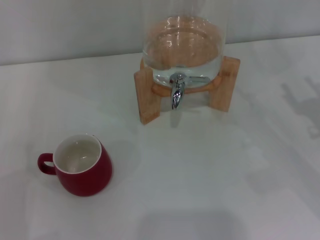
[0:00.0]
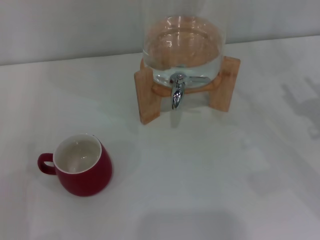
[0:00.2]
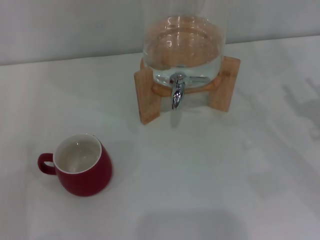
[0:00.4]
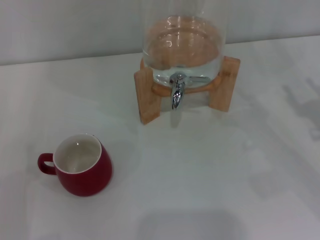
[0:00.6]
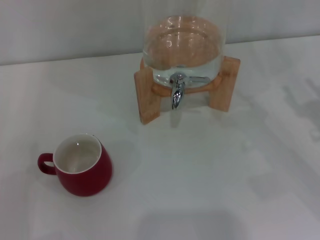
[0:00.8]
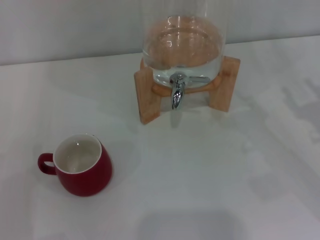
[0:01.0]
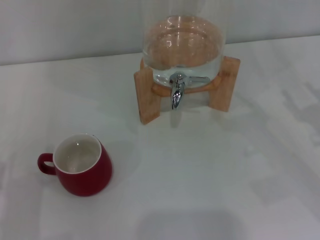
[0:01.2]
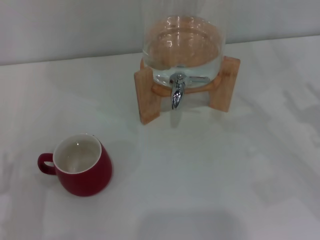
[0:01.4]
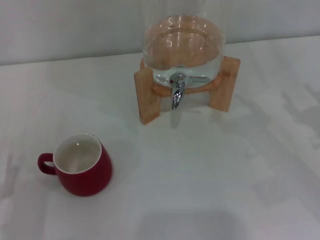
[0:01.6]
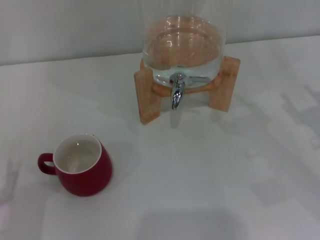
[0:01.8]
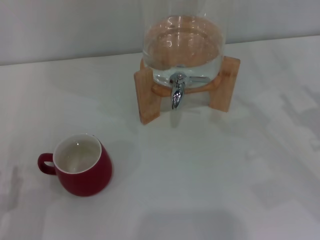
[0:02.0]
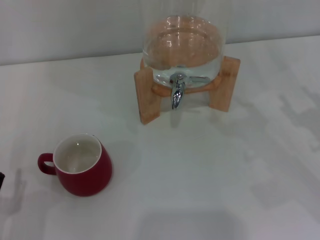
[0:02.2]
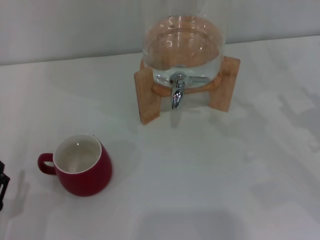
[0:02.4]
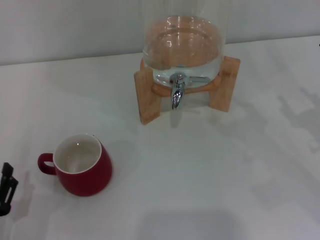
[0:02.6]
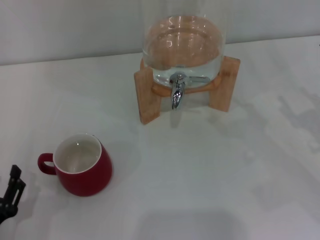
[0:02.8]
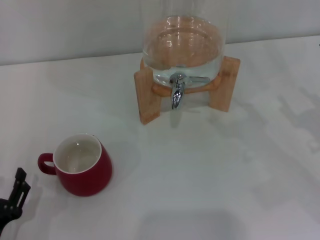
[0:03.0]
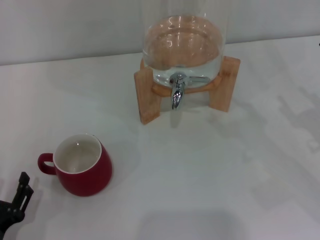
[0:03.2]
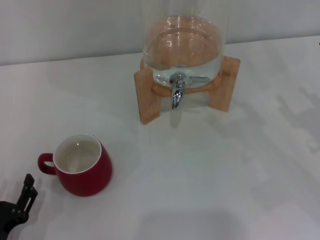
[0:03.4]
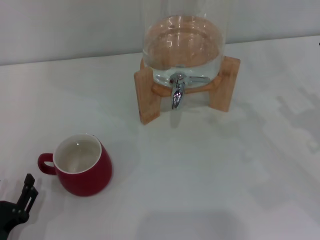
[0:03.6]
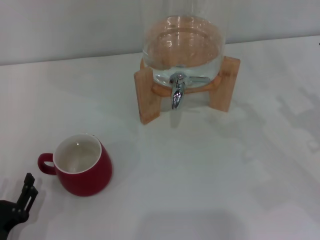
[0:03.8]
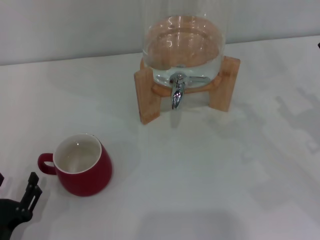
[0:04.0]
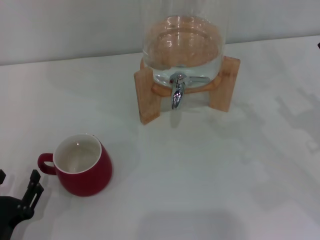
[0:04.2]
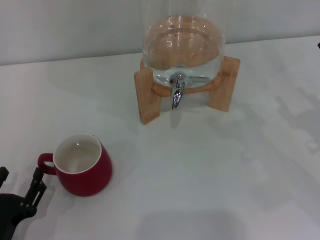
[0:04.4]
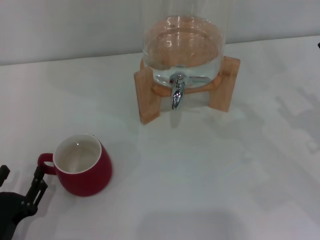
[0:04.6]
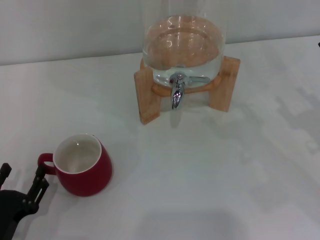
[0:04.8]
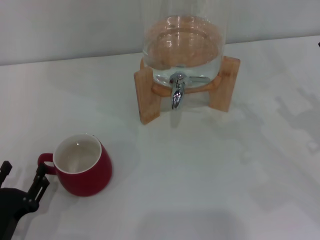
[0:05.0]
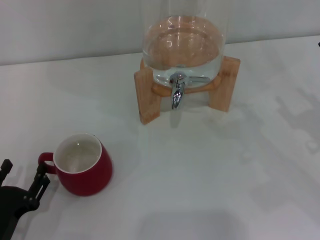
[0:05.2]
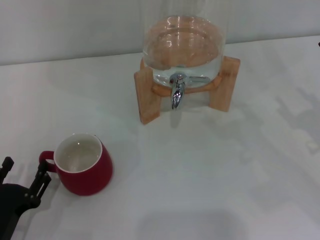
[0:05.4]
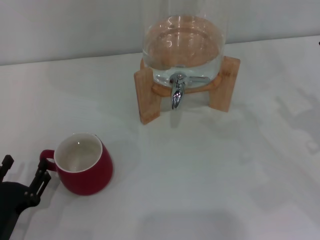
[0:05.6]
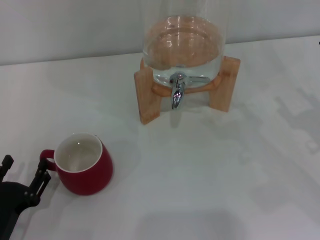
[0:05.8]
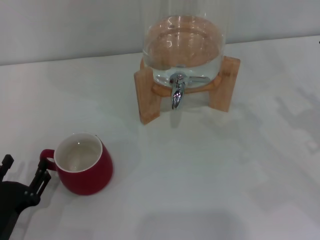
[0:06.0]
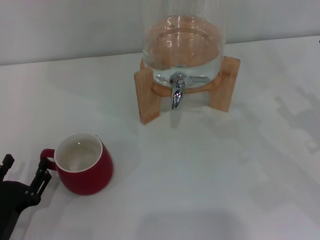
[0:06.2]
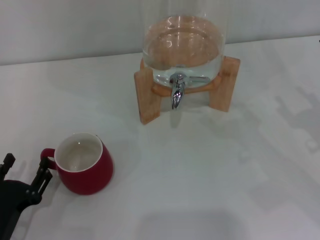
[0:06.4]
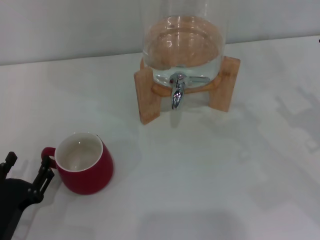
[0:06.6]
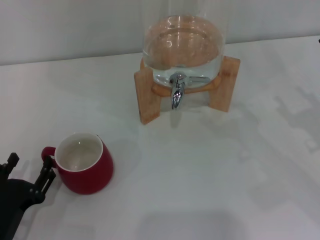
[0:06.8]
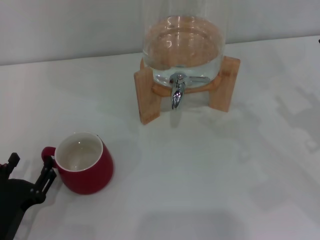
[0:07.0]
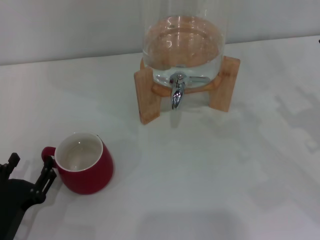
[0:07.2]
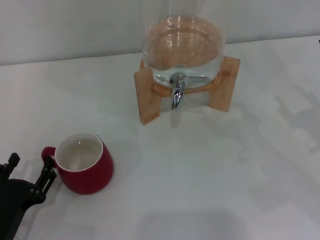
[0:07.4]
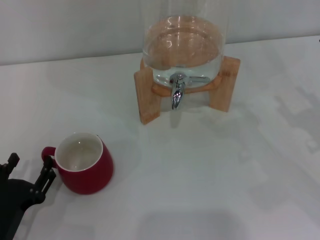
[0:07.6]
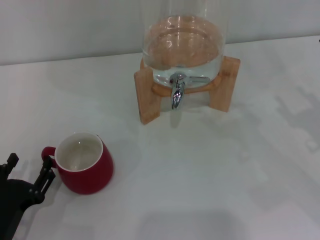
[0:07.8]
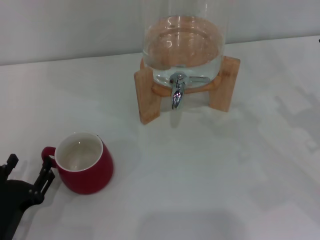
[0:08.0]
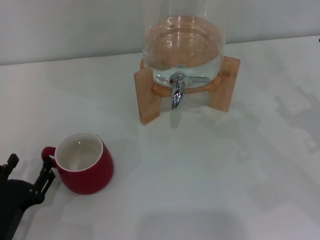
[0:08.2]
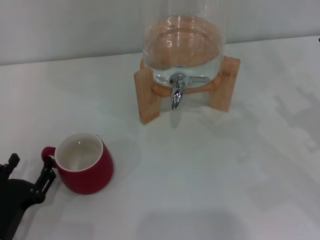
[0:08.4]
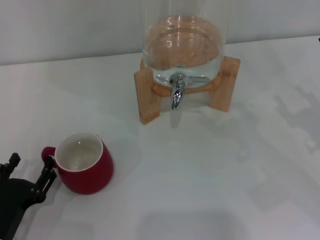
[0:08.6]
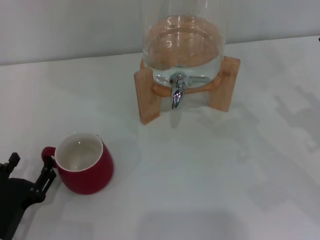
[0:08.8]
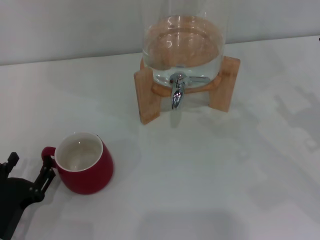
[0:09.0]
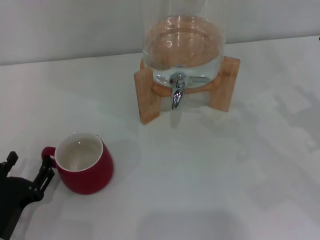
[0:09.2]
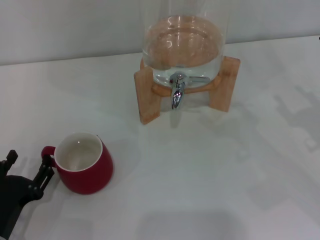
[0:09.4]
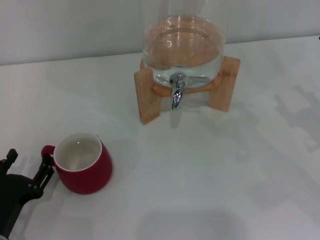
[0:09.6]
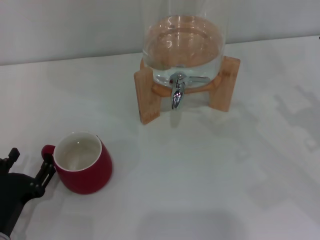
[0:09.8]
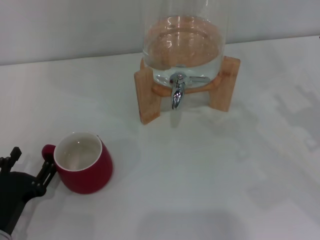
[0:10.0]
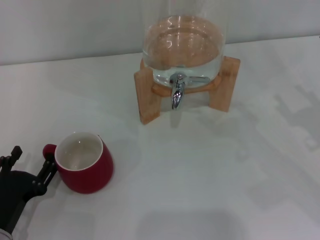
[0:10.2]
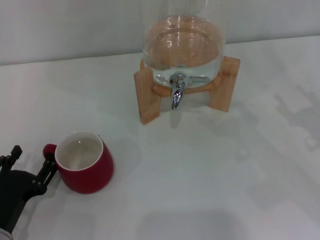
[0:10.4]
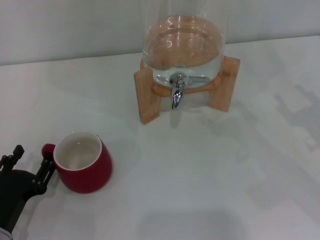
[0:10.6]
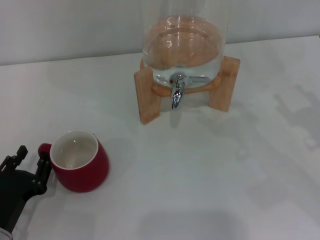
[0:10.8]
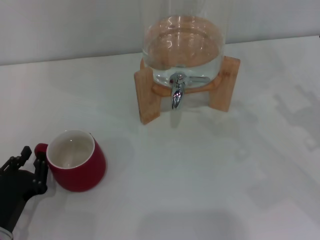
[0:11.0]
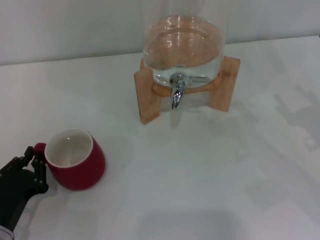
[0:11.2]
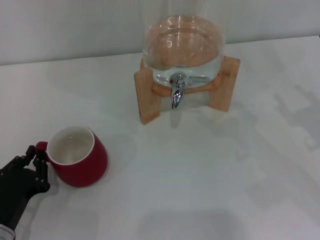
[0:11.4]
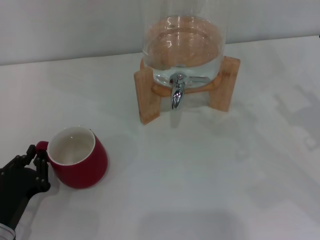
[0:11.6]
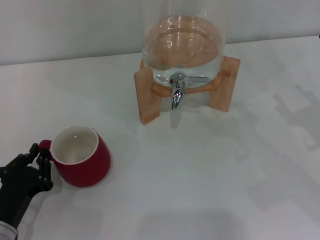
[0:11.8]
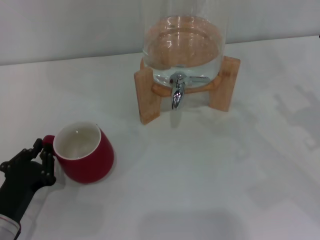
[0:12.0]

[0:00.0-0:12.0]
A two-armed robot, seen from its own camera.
Task of the whole recording: the left gripper pick up the red cup and place it horizontally under the faucet, the right gripper turn on the faucet to fill the cup, and then turn off the faucet.
0:01.6 to 0:06.0: The grippers make only small movements.
0:06.0 to 0:09.0: Both grippers stay about where they are.
0:09.0 to 0:10.4: The two grippers keep their place.
0:10.4 to 0:12.0: The left gripper closes its fingers.

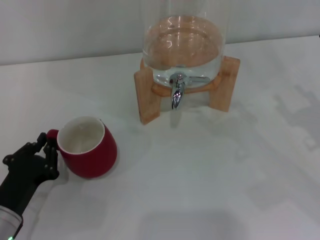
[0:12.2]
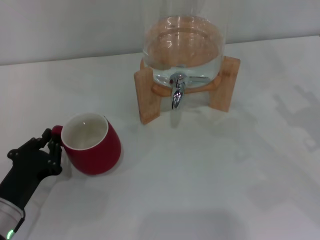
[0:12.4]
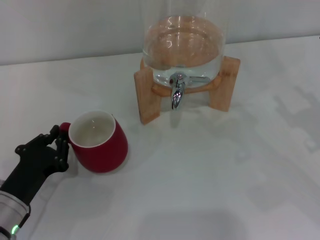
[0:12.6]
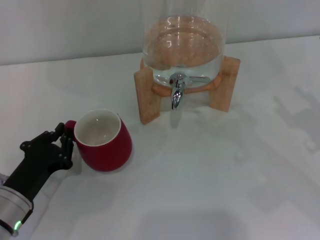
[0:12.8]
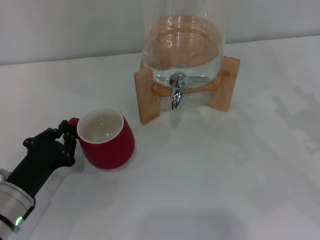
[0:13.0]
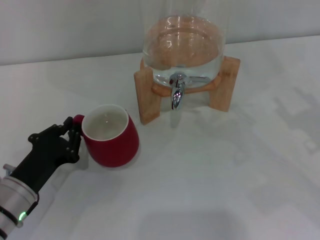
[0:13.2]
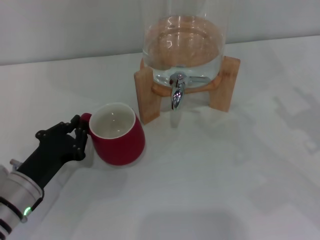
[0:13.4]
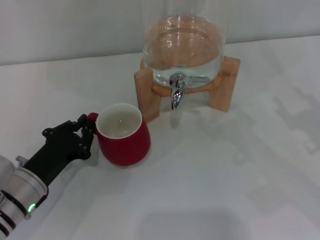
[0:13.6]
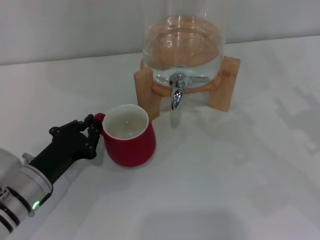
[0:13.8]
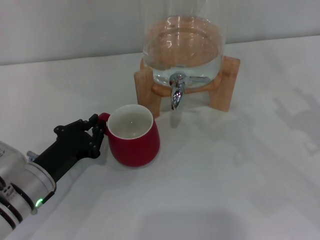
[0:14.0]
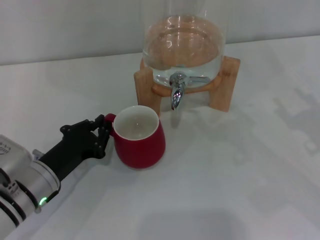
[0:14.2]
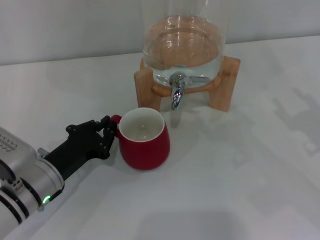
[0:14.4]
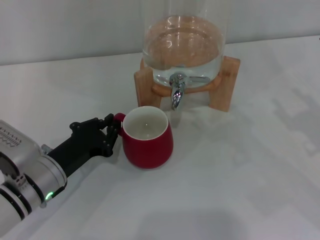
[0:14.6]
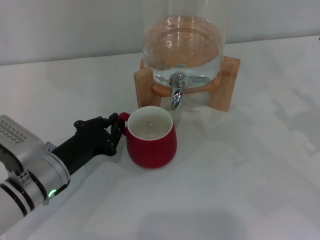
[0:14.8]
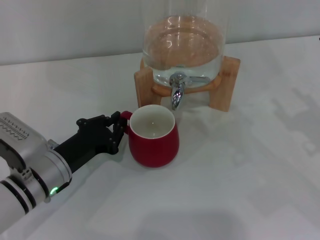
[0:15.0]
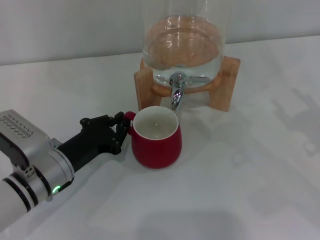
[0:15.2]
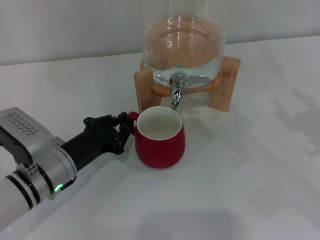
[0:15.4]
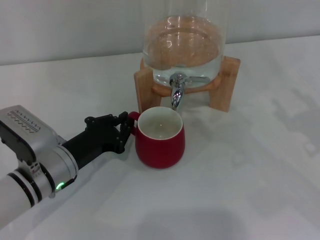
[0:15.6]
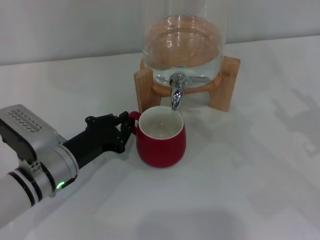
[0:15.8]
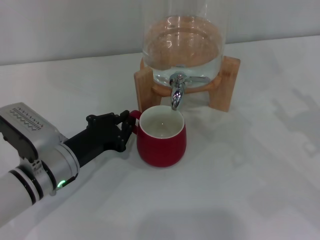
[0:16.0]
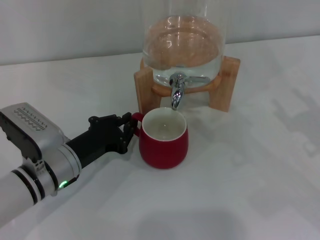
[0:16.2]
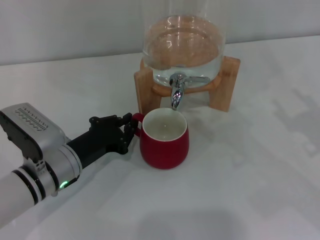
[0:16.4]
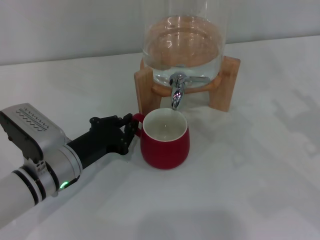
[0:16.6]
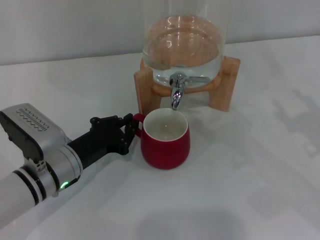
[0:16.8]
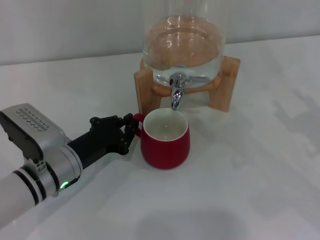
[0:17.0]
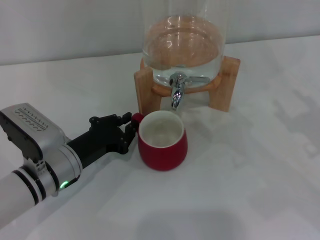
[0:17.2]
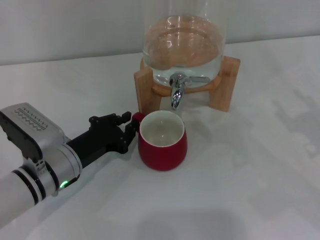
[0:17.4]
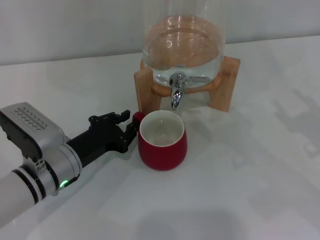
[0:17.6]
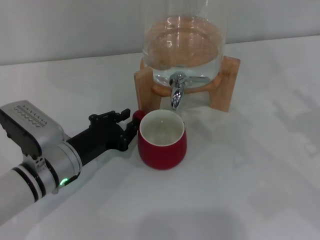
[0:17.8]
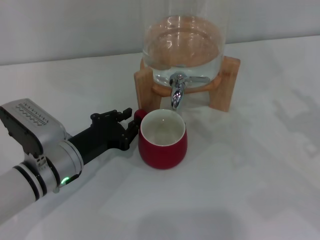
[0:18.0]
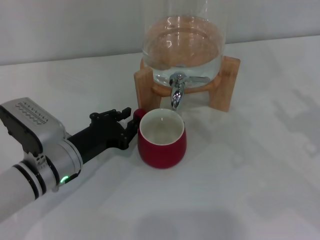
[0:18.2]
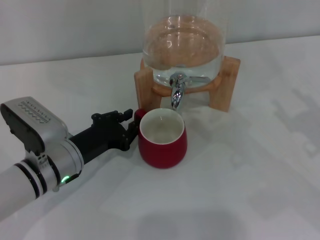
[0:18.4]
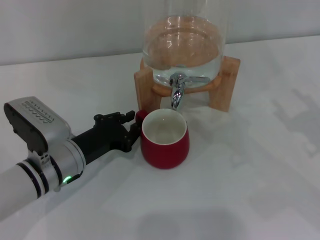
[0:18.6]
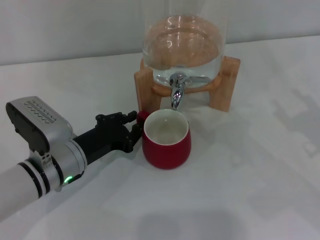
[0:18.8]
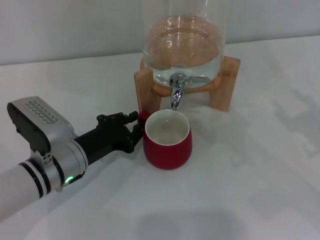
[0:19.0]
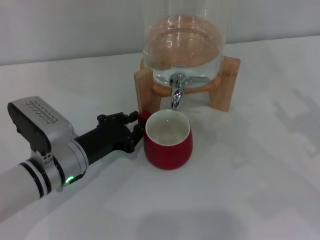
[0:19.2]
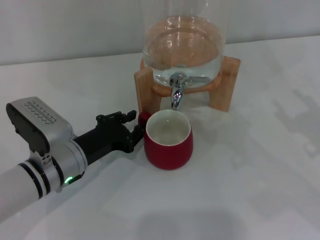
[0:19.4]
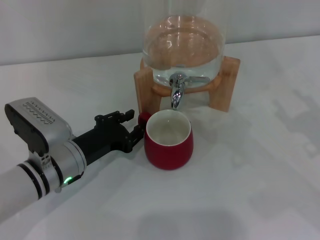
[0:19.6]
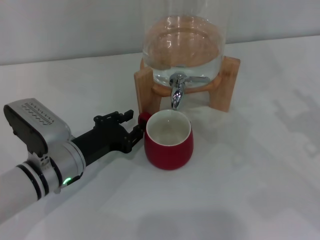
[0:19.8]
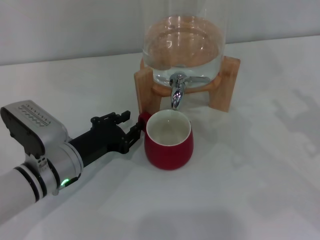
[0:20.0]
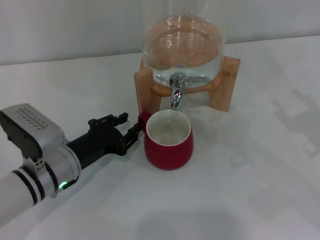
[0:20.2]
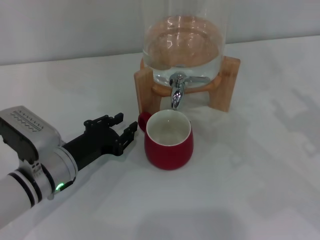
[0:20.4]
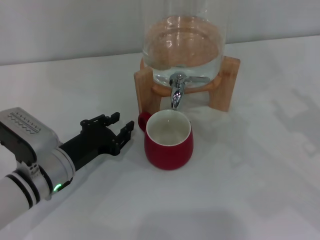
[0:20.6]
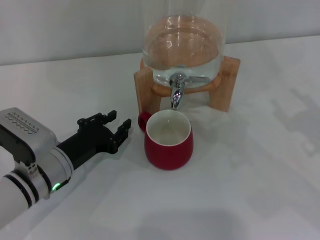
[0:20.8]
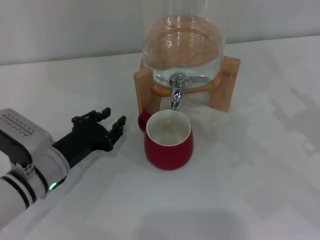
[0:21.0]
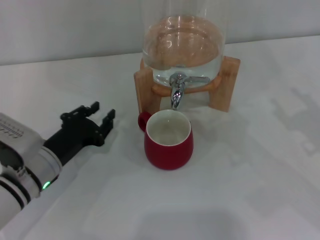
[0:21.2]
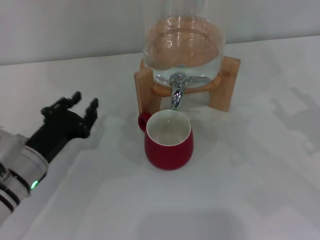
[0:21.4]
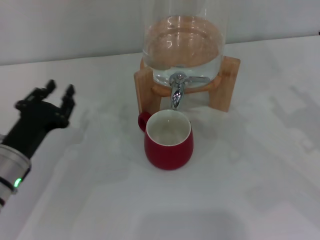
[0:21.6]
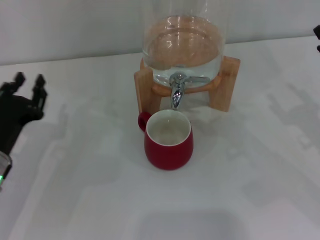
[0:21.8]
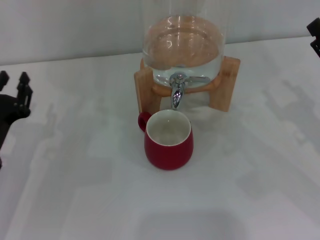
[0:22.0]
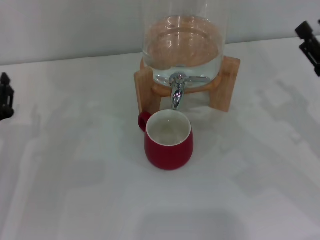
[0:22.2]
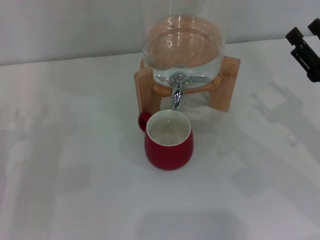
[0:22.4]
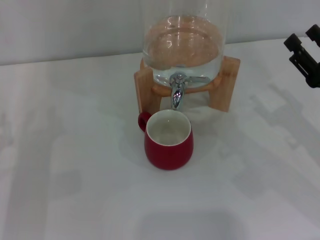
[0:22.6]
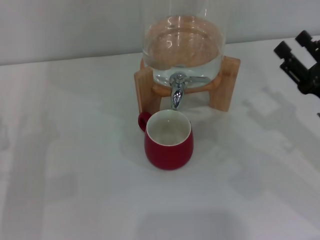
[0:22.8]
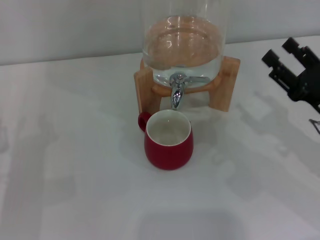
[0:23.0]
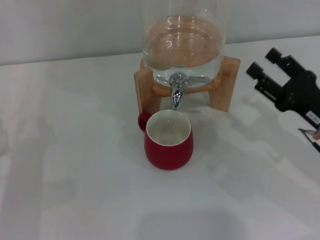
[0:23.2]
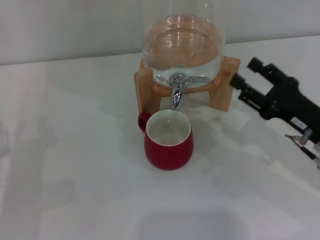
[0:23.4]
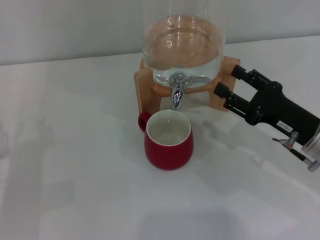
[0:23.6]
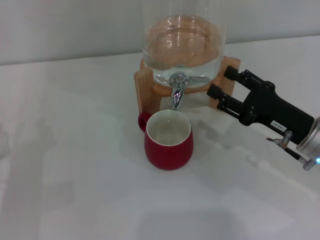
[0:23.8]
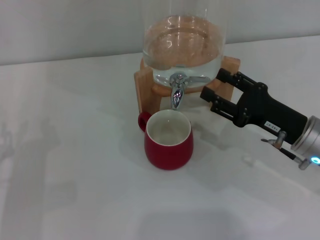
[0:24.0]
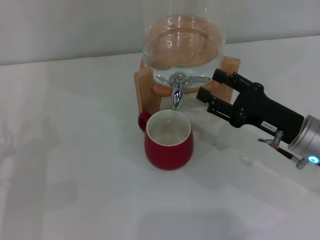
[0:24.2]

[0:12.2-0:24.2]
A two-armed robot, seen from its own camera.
Task of the whole recording: the left gripper pick up the red cup and place it horizontally under the faucet, the right gripper turn on the faucet to fill the cup, and then turn off the faucet.
Step, 0:12.2 to 0:21.0: Move the cup beneath the water dispenser nozzle with the left gripper.
0:12.2 to 0:13.8: The left gripper travels forward by roughly 5 cm.
0:13.8 to 0:15.2: There are only small adjustments of the grippers.
0:15.2 to 0:16.6: Both grippers stay about where they are.
0:16.6 to 0:19.8: Both grippers stay put.
0:19.8 to 0:21.2: There are only small adjustments of the grippers.
0:21.2 to 0:22.6: The left gripper heads to the left, covering roughly 10 cm.
0:22.6 to 0:24.2: The right gripper goes roughly 5 cm to the left.
